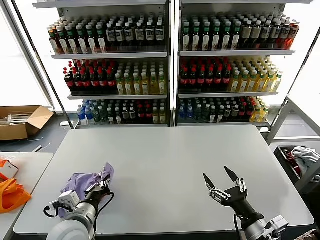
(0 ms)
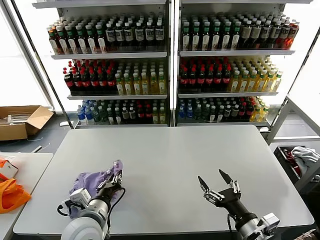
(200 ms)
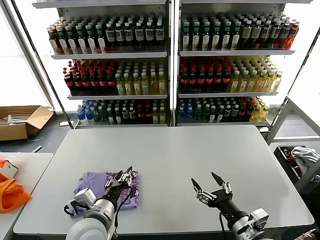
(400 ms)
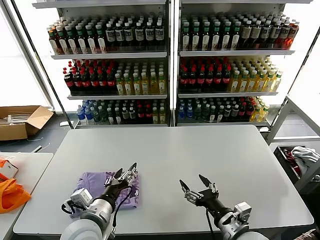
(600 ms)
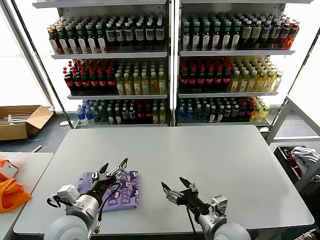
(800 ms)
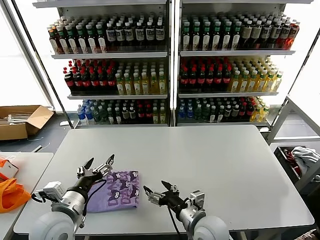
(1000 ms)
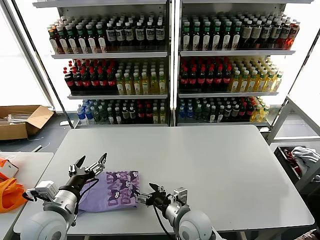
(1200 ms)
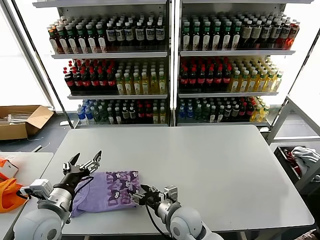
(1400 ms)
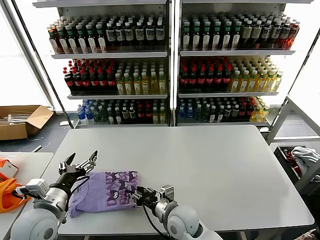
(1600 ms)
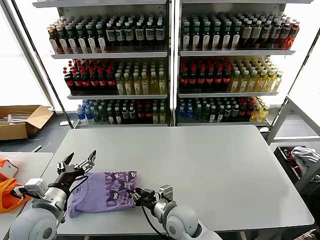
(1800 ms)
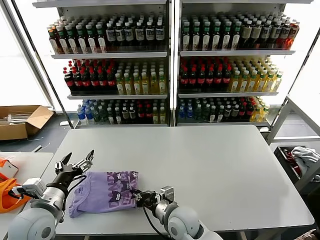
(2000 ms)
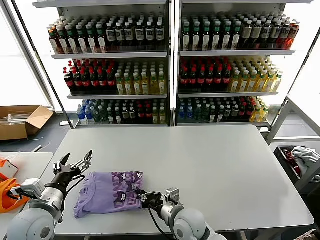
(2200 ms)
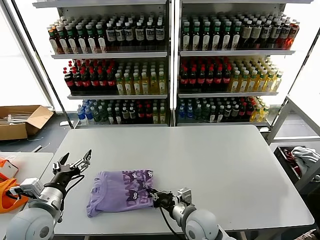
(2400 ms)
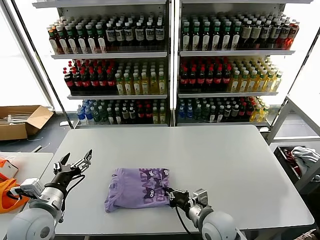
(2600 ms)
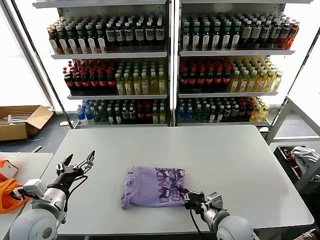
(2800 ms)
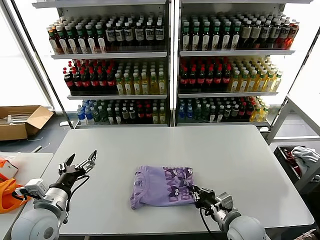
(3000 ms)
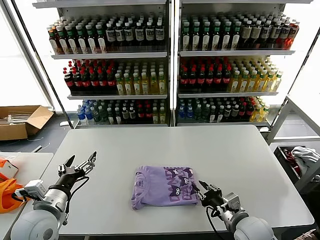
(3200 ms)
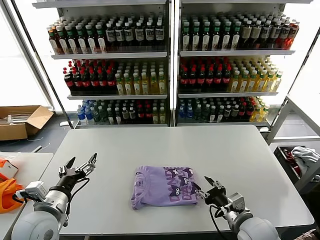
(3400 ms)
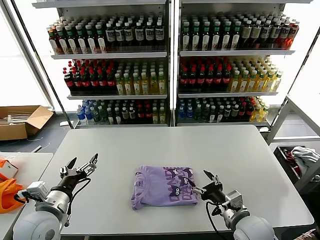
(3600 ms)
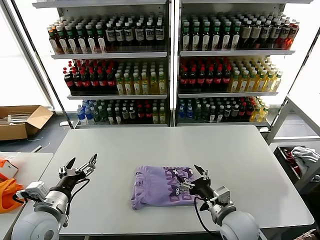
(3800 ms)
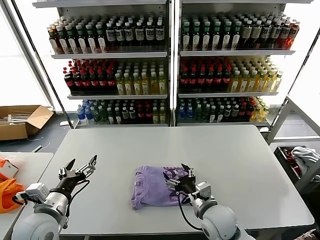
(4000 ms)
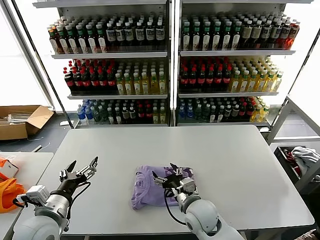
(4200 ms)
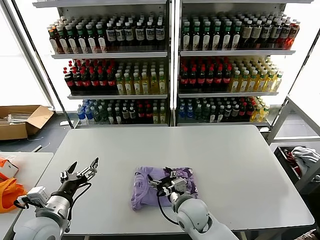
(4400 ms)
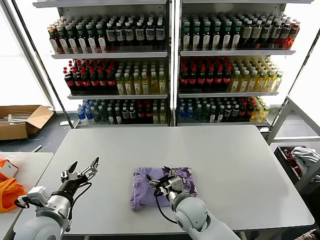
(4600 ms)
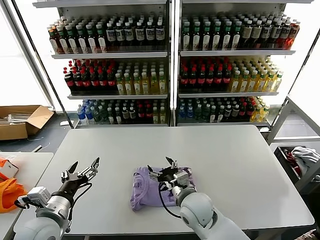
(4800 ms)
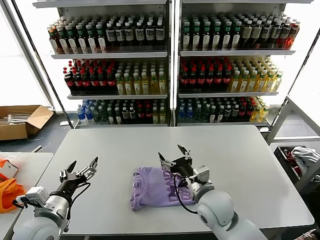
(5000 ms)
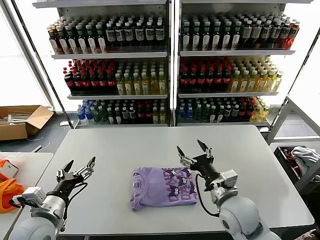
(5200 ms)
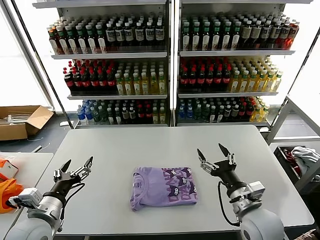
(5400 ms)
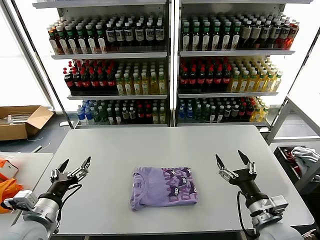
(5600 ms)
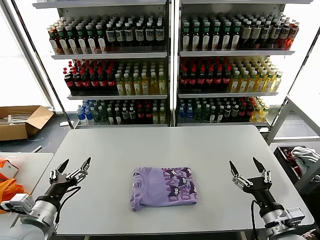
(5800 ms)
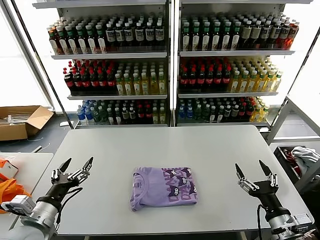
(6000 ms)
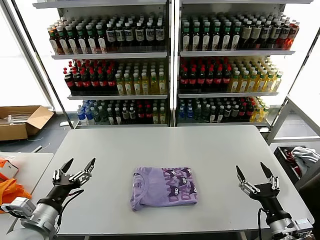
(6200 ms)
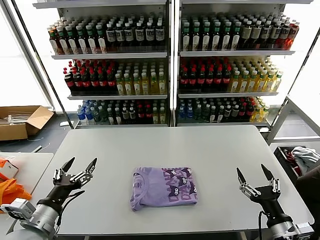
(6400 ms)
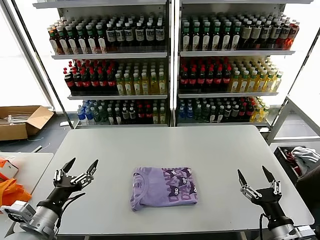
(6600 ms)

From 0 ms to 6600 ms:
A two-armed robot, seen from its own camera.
Task of the whole recording: fold and organize the clothes.
Step, from 400 ms to 4600 ms: Drag the clothes to the center of the table.
From 0 ms to 1600 ms: The right gripper travels to the left and forward by roughly 25 cm, and closes up. The left gripper travels to the left by some 5 cm, and opens.
From 1600 ms to 3200 ms: The right gripper shifts some 20 cm to the right.
From 3200 ms to 5000 ms: The right gripper travels to the left and forward by some 15 cm, and opens.
From 5000 ms to 6600 ms: The right gripper heads to the right and backward, covering approximately 25 cm.

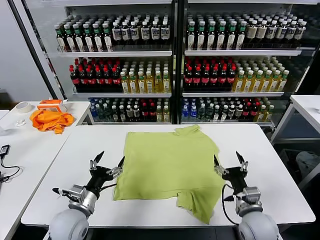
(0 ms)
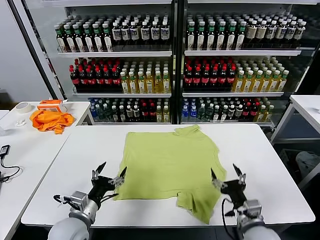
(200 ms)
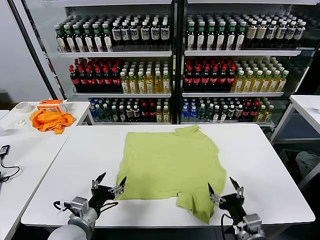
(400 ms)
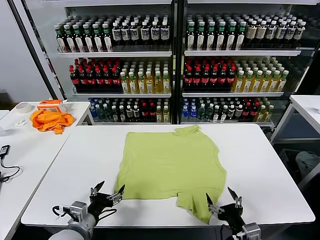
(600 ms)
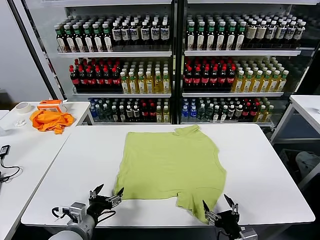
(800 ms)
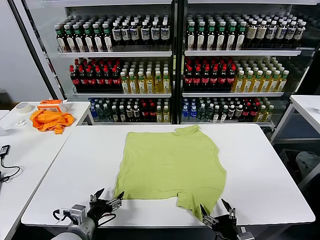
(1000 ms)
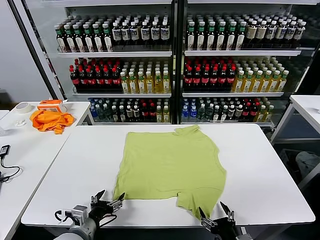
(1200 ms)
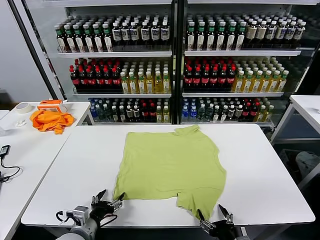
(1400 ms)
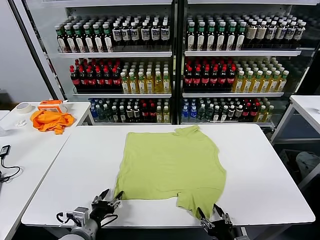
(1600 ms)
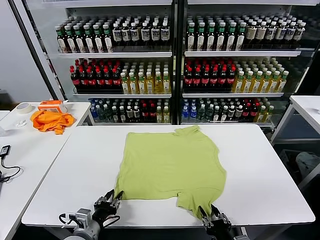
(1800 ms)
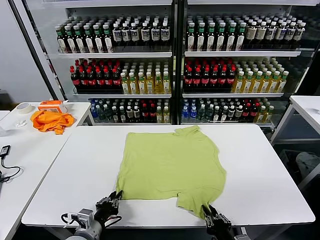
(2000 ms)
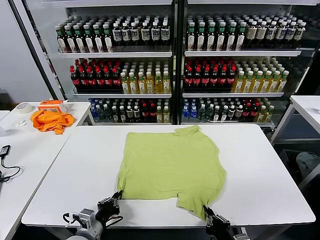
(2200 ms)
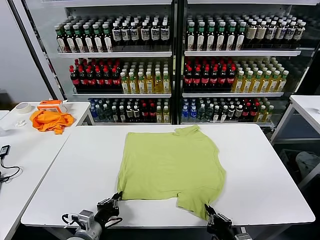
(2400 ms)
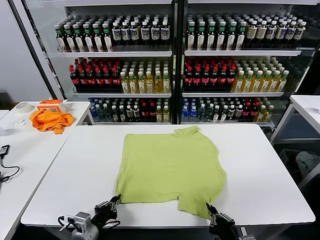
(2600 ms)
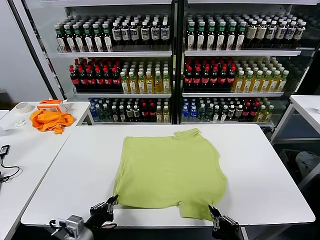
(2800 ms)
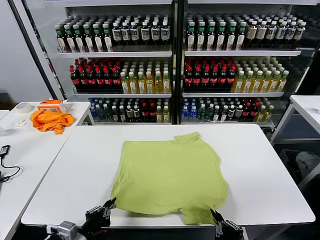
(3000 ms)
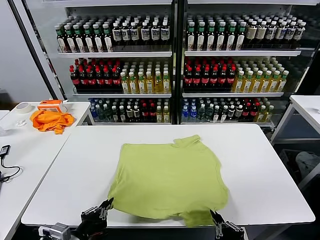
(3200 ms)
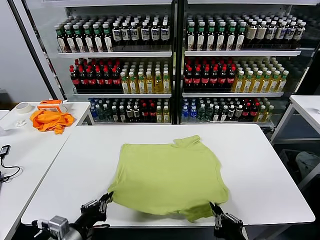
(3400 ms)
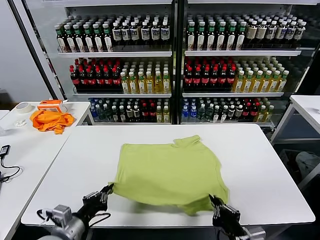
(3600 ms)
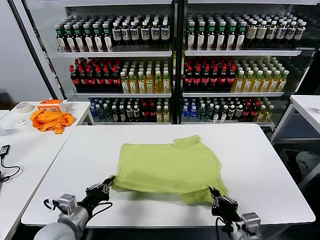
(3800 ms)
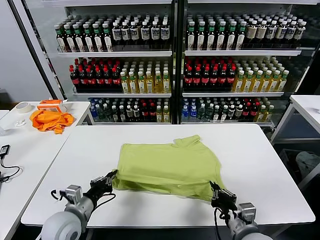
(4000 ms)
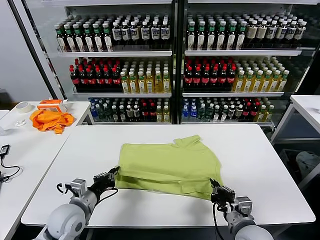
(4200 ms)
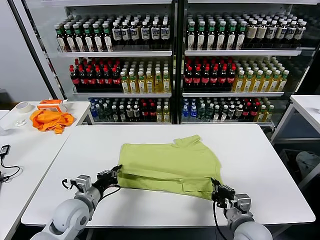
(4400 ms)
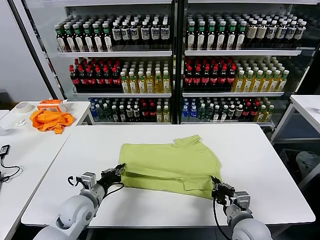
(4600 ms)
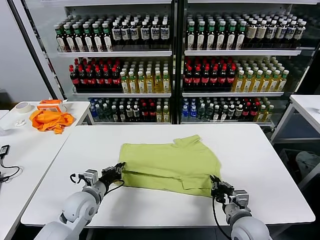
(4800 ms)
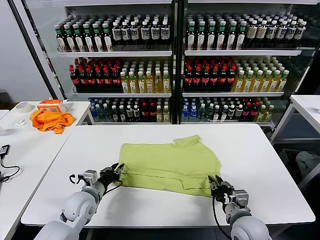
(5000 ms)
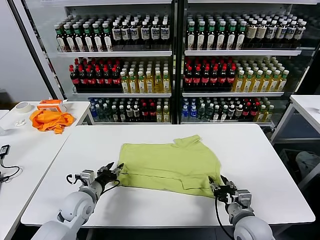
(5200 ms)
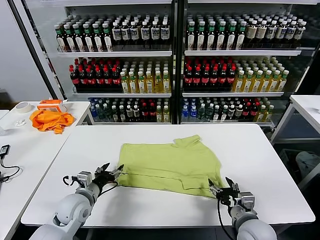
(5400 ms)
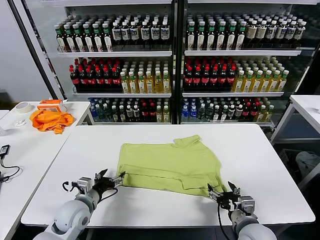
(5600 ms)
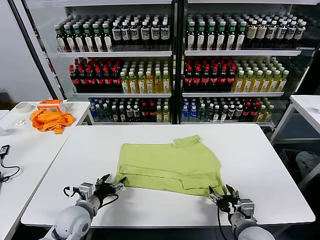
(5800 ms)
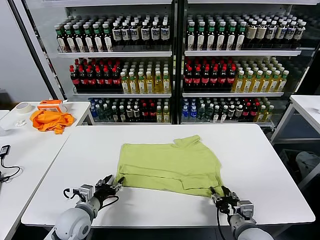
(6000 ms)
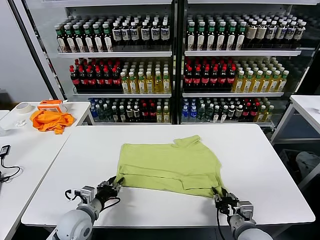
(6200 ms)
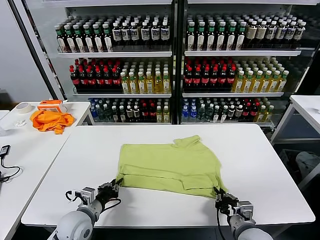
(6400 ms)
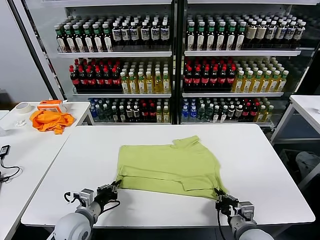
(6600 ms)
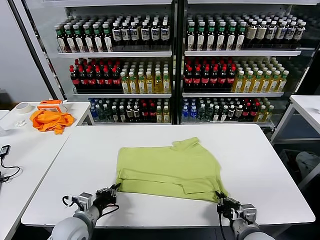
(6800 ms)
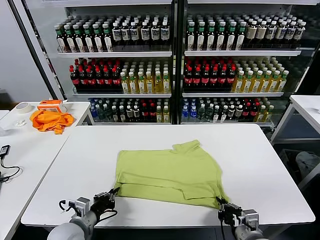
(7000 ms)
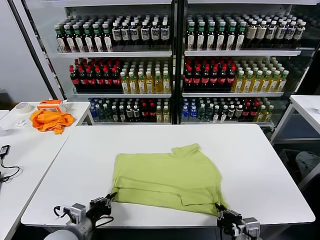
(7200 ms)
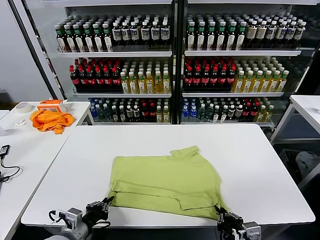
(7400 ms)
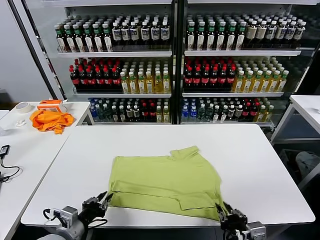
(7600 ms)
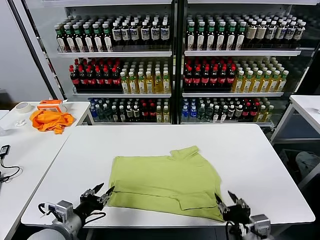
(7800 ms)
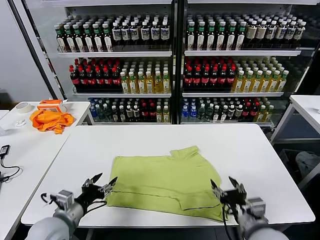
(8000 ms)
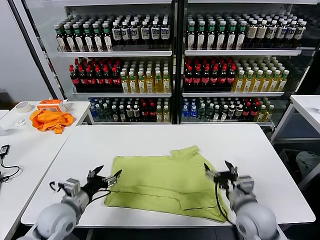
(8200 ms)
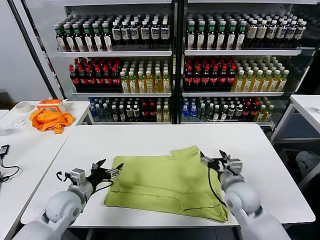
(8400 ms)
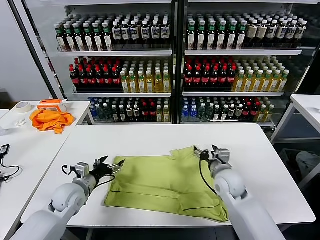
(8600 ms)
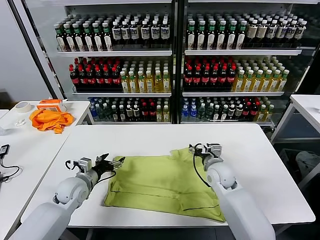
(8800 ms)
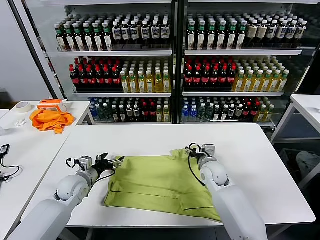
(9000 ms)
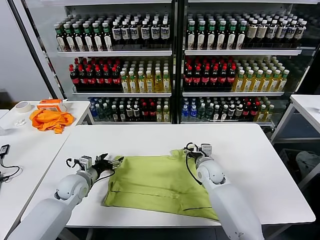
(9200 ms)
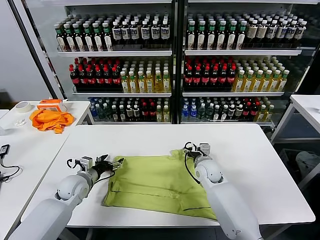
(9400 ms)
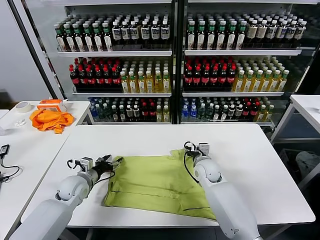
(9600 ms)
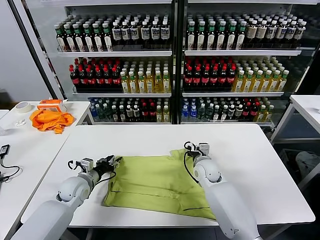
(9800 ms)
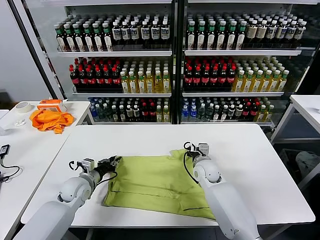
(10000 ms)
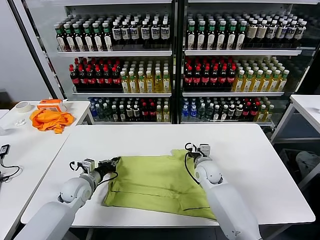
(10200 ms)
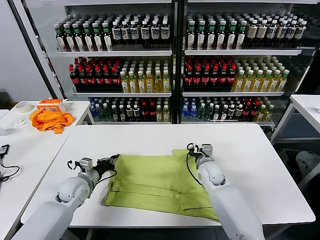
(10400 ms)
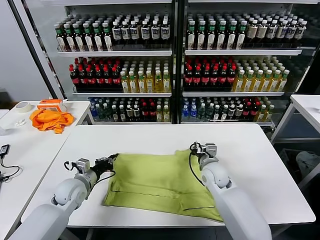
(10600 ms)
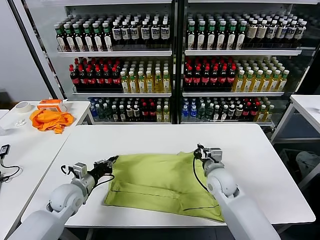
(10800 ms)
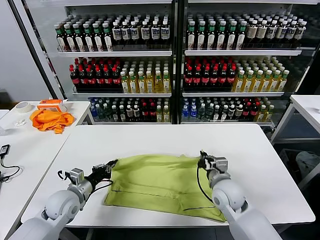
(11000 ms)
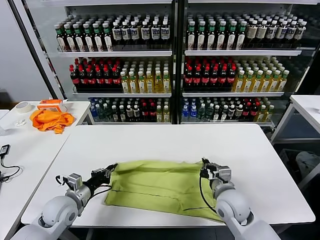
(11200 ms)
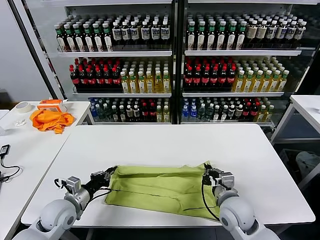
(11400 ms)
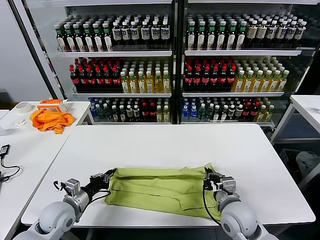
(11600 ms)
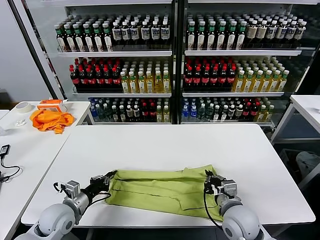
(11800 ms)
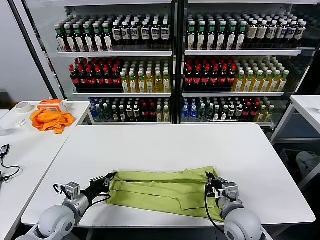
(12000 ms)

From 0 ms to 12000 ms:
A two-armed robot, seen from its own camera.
Task of the whole recording: fold and organize the clothes.
Step, from 0 ms to 2400 ms: use both grippers simultaneously to clamp the lower edge of the clothing fabric.
Step, from 2600 ms to 5000 ms: use both grippers to drag the lower edge of the fabric forward and fold it over the upper edge.
Step, from 5200 ms to 7600 ms: Drag the clothes downward with both gripper.
Step, from 7800 ms to 10200 ms: use both grippers simultaneously to clamp the upper edge of the clothing fabric.
From 1600 ms to 3000 ms: The grippers both shift upward and backward by approximately 10 cm. The right gripper closes its fingers; the left gripper closes up.
From 3000 ms to 4400 ms: The grippers both shift forward by approximately 15 cm.
From 4400 ms to 6000 ms: The left gripper opens. Meanwhile the right gripper opens up.
From 6000 ms to 7600 ms: The left gripper shifts about 10 cm backward. Meanwhile the right gripper shifts about 10 cm backward and upward, and closes and opens again.
From 7600 ms to 9000 ms: The left gripper shifts about 20 cm forward, and opens. The right gripper goes about 30 cm forward, and opens its fingers.
From 9000 ms to 10400 ms: The right gripper closes up. The left gripper closes up.
From 10400 ms to 12000 ms: The right gripper is displaced backward by approximately 20 cm, while the left gripper travels backward by roughly 10 cm.

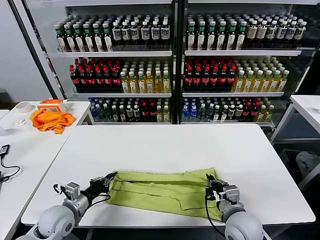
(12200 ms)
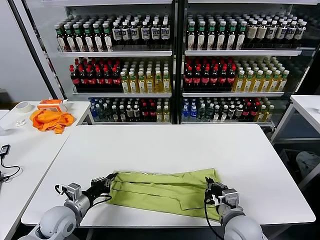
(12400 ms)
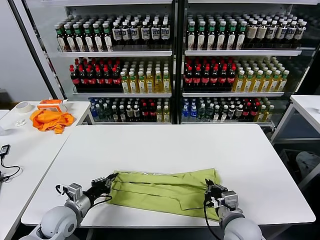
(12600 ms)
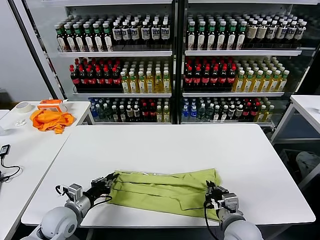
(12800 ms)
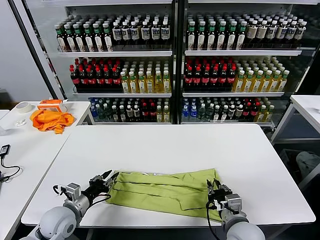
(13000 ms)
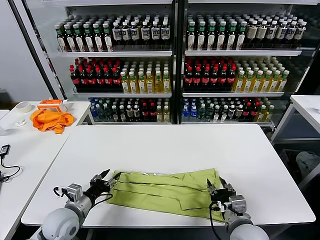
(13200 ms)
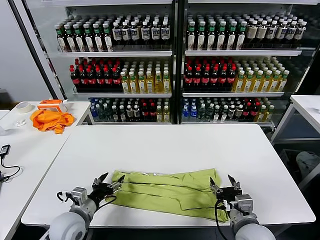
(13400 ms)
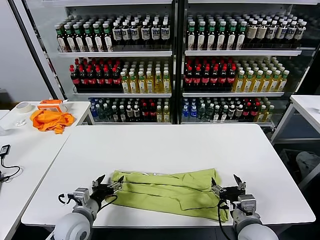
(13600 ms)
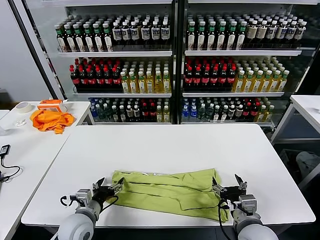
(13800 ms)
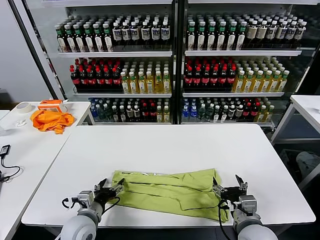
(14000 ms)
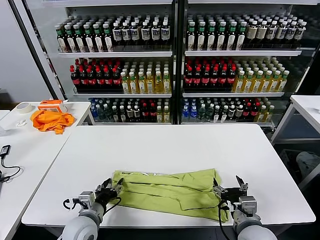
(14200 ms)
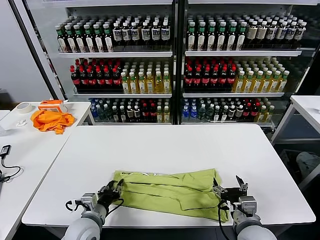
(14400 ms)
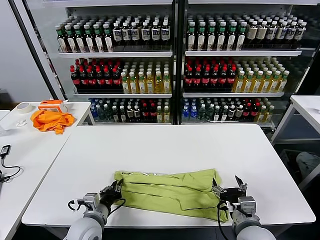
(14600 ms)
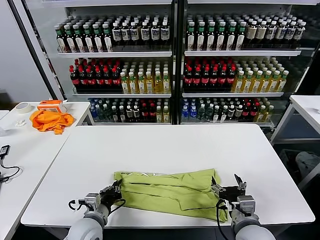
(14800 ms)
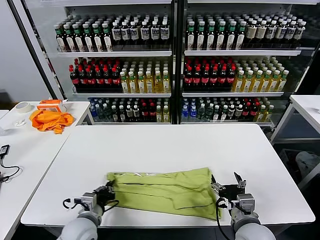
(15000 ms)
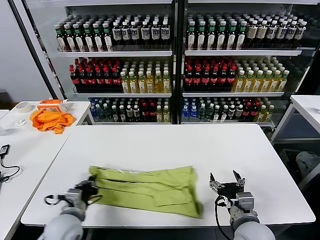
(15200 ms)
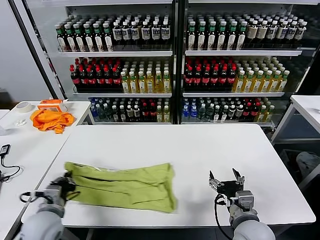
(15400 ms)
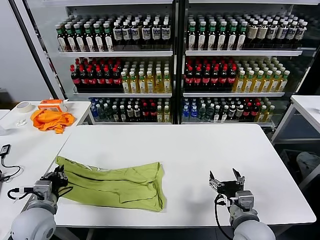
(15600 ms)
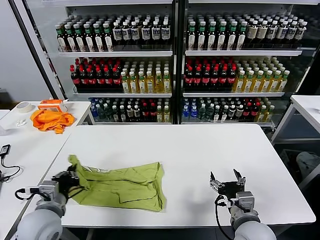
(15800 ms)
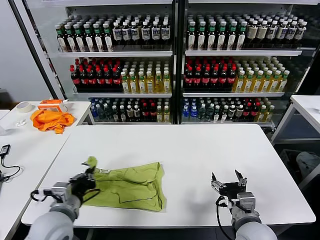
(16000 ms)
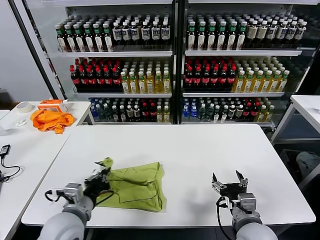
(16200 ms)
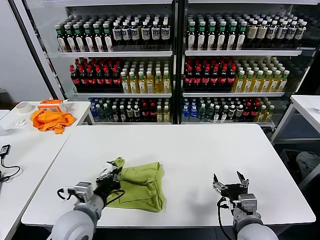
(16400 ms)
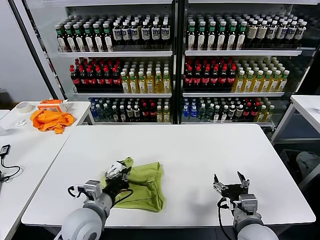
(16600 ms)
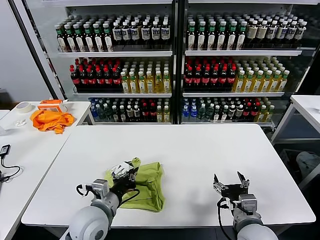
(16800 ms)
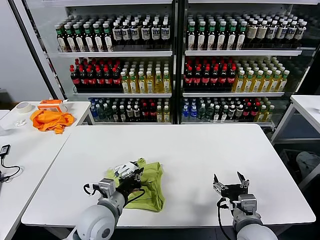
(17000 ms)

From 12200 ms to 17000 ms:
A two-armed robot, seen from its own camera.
Task of the whole recording: fold and organize the clothes.
Step, from 13200 ms to 14800 ms: use the left gripper to clamp the left edge of the fabric.
From 12200 ms to 13800 ms: The left gripper heads to the right, covering about 5 cm, and opens up; the right gripper opens.
From 13800 ms to 15400 ms: The left gripper goes about 5 cm to the left, and closes its fingers.
From 15400 ms to 17000 ms: The left gripper moves to the right, roughly 15 cm.
